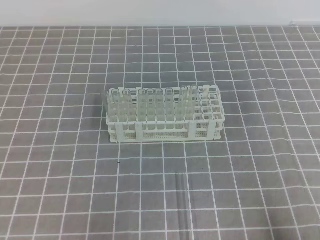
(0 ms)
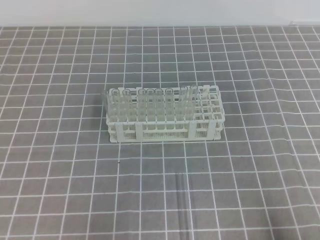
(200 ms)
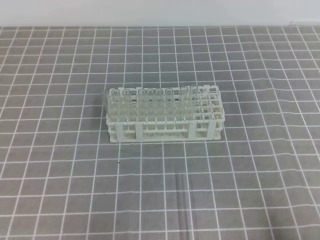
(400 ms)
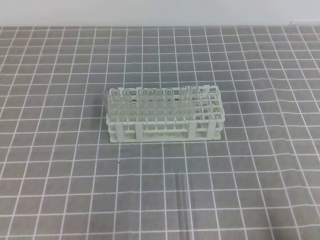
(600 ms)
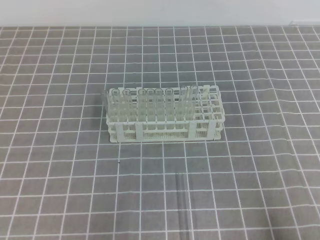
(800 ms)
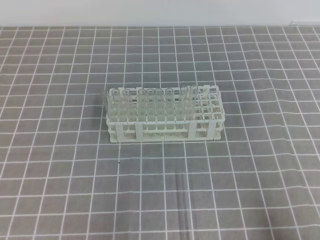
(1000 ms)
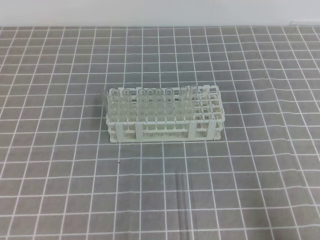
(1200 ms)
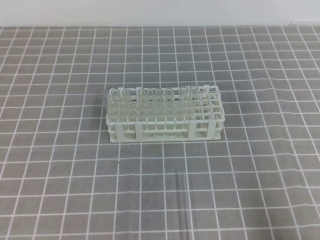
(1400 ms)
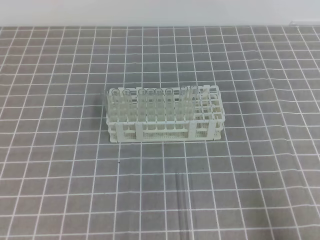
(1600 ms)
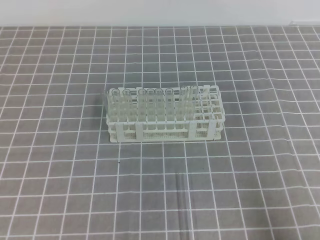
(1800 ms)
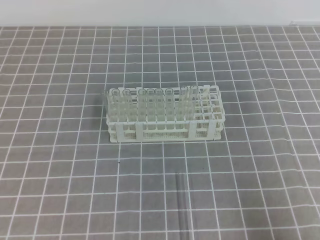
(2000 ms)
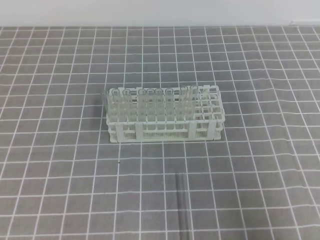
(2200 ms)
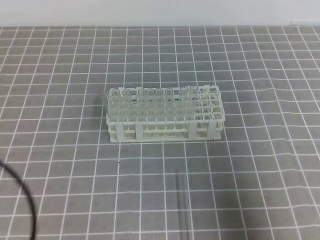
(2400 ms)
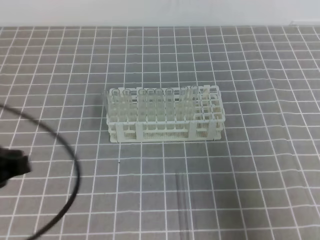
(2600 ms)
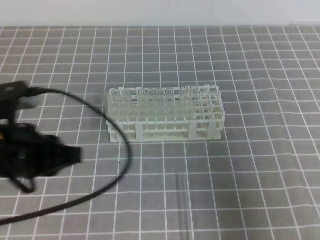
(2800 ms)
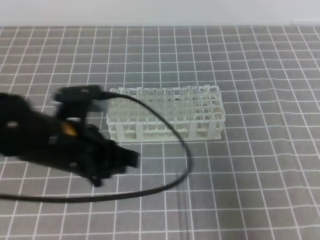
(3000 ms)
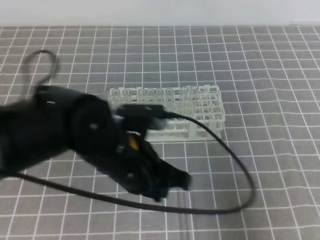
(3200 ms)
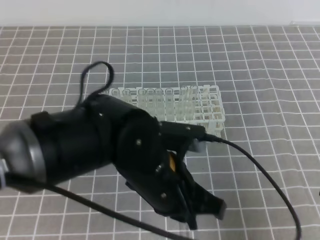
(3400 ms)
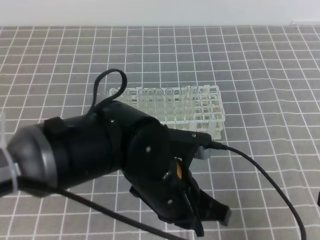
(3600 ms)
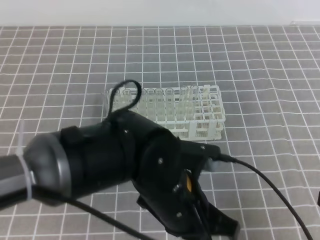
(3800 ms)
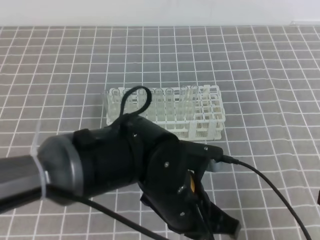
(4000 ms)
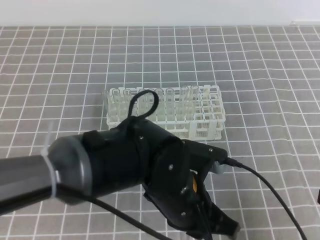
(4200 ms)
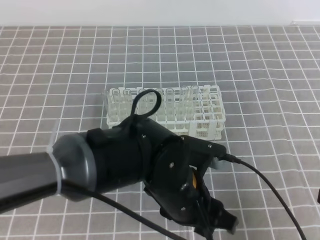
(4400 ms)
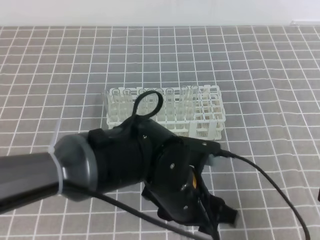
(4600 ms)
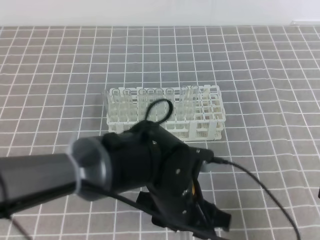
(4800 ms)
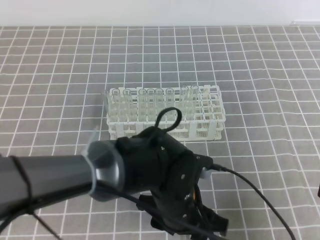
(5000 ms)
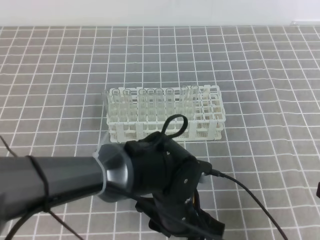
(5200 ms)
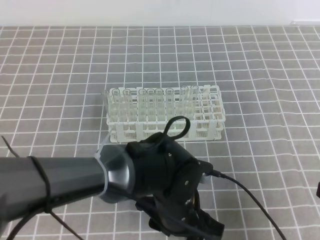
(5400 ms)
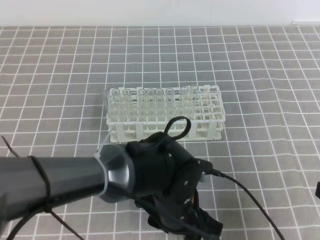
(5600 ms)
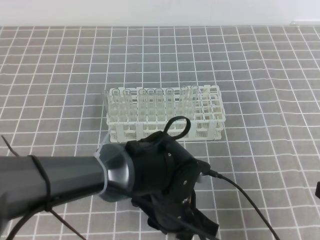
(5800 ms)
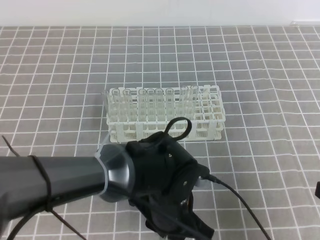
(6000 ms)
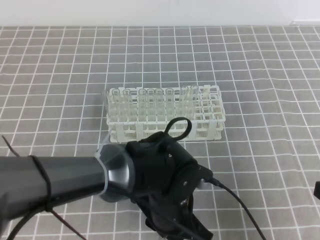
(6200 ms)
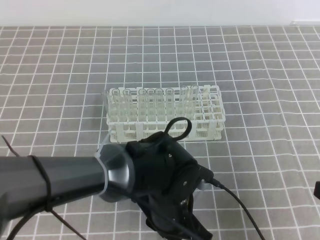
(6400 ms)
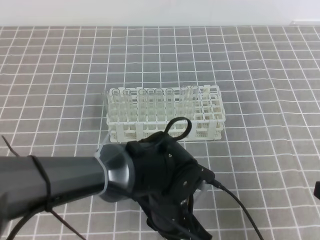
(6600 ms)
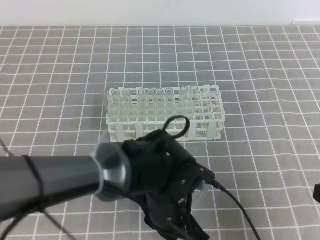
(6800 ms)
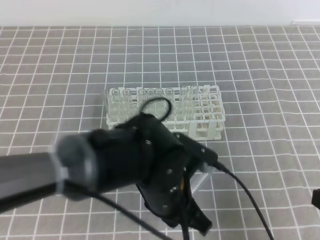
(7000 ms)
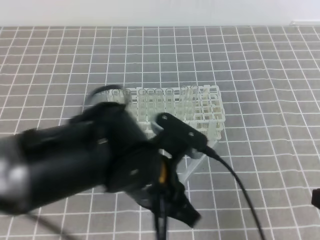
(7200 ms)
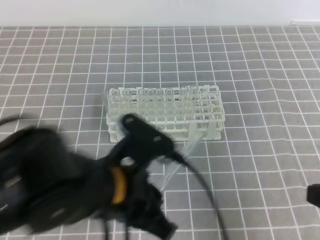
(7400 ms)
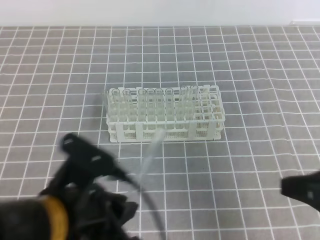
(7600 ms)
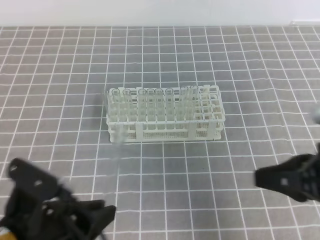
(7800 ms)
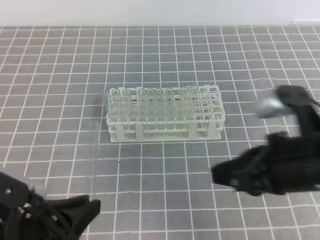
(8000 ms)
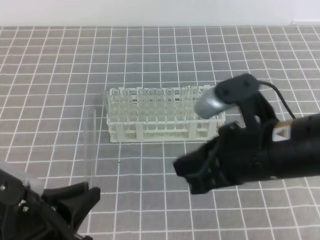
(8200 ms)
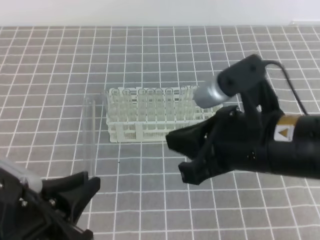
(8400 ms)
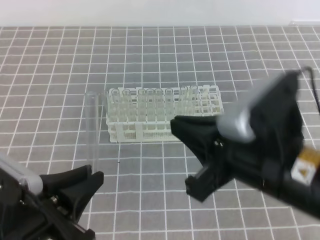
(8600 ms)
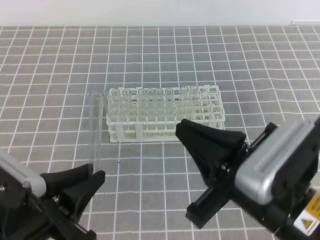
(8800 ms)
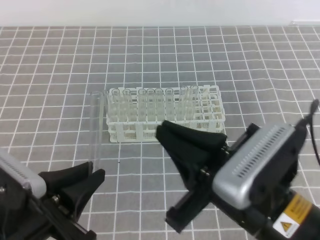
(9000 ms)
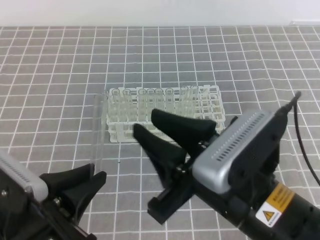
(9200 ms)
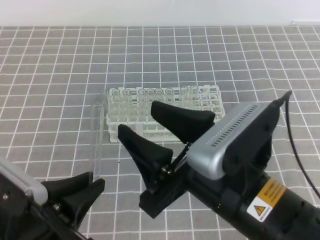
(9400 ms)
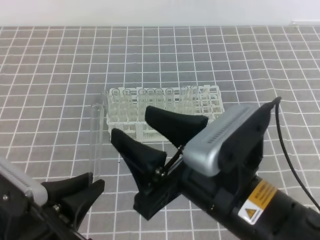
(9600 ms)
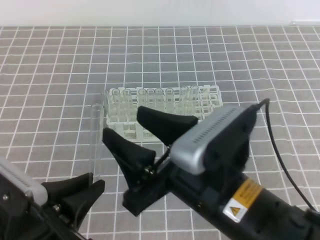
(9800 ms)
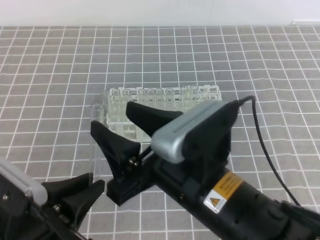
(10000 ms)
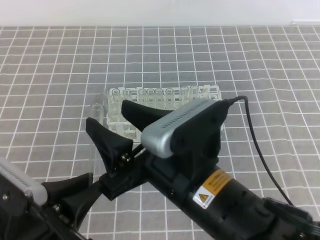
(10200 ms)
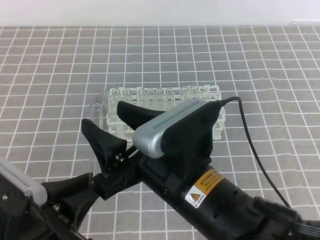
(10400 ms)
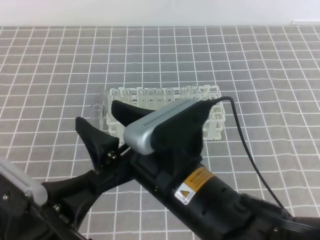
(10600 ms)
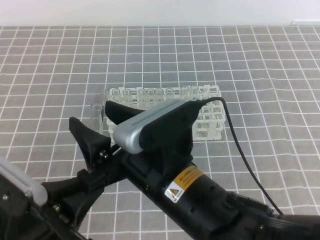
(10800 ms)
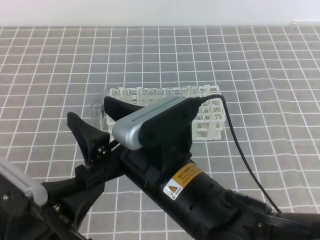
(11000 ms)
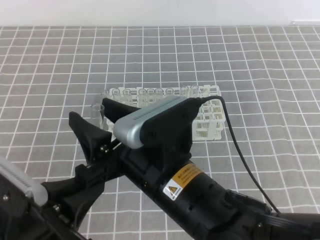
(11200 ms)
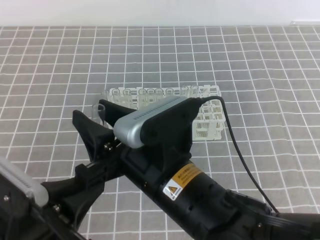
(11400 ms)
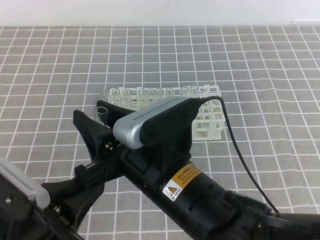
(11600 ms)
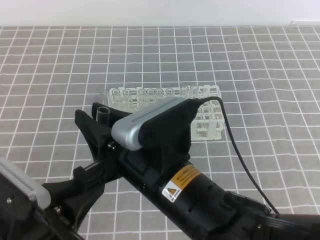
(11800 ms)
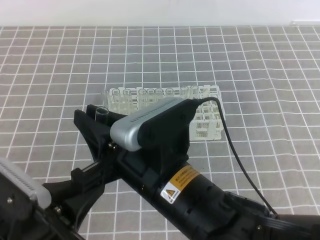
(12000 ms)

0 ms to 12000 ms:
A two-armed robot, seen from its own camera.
1600 ms to 3000 ms: The left gripper goes roughly 20 cm forward, to the right and upward. Meanwhile the right gripper moves forward and upward, some 10 cm.
3000 ms to 4400 ms: The left gripper moves to the right, roughly 15 cm, and opens its fingers.
4400 ms to 6000 ms: The left gripper is displaced downward by some 5 cm.
6000 ms to 7600 ms: The left gripper heads to the left, upward and backward, covering roughly 15 cm, and closes.
7600 ms to 9000 ms: The left gripper is displaced to the left by some 5 cm. The right gripper is displaced to the left by approximately 15 cm.
9000 ms to 10400 ms: The right gripper shifts approximately 5 cm to the left, and opens.
10400 ms to 12000 ms: The right gripper closes up.

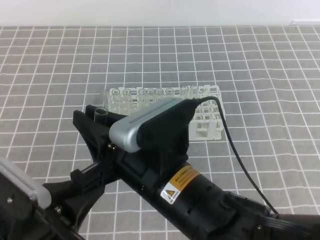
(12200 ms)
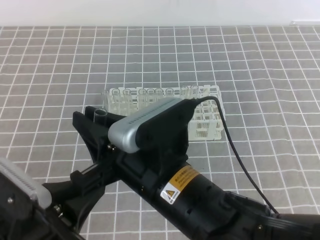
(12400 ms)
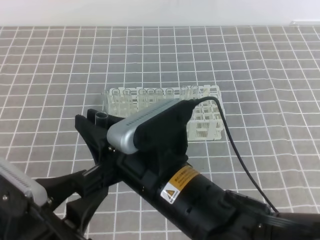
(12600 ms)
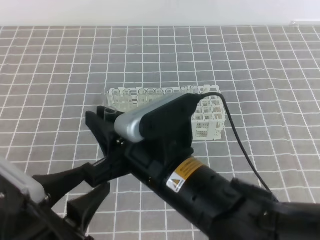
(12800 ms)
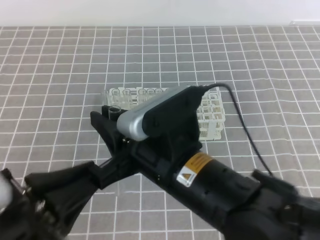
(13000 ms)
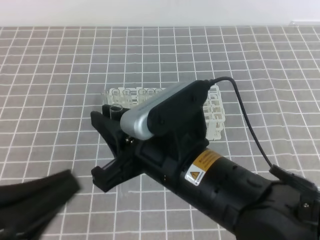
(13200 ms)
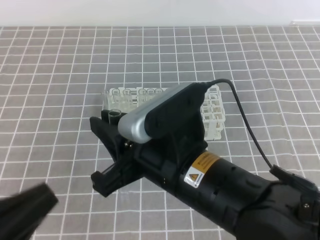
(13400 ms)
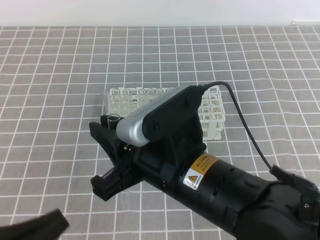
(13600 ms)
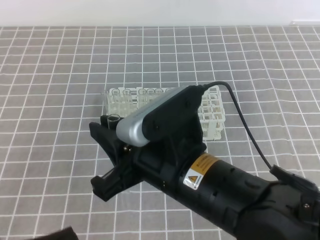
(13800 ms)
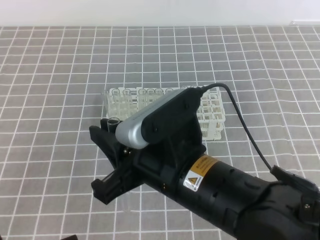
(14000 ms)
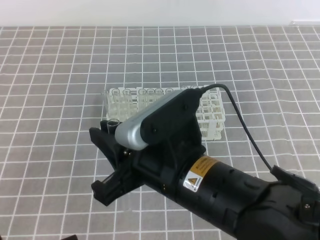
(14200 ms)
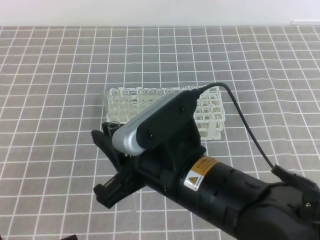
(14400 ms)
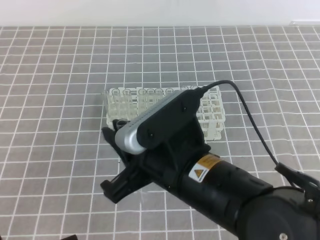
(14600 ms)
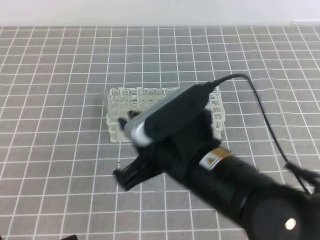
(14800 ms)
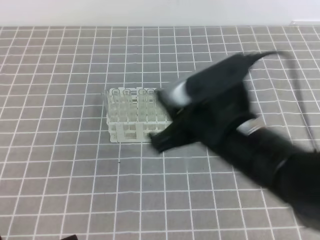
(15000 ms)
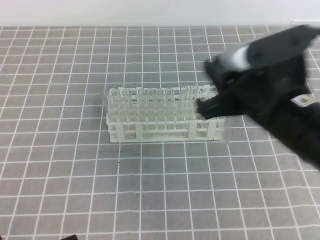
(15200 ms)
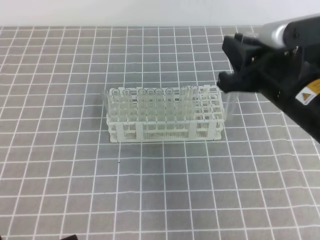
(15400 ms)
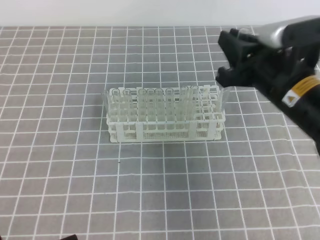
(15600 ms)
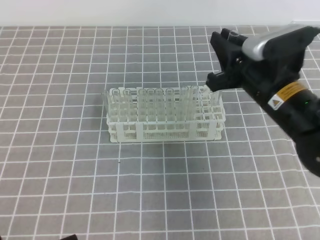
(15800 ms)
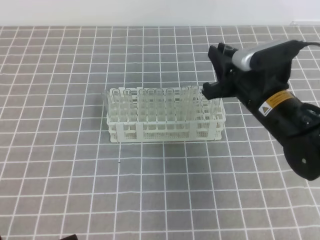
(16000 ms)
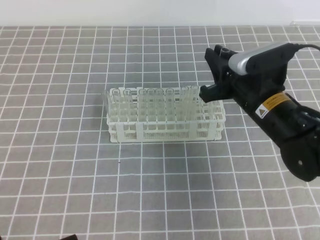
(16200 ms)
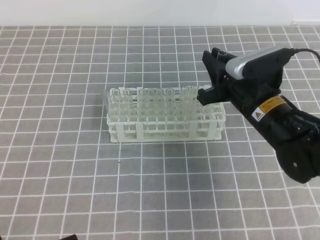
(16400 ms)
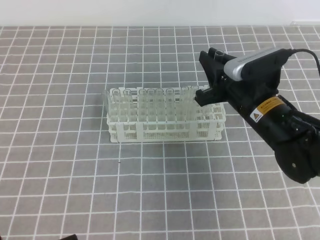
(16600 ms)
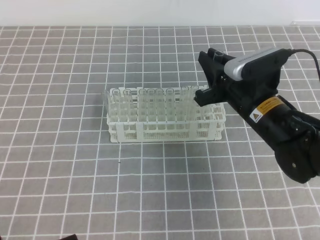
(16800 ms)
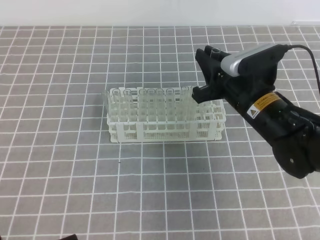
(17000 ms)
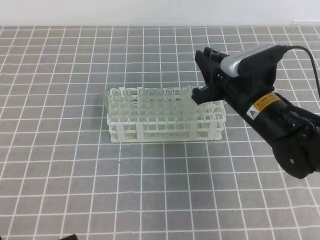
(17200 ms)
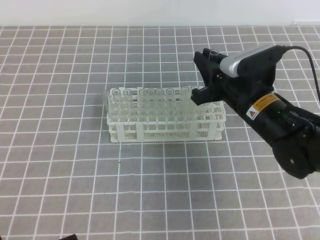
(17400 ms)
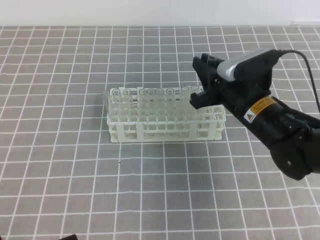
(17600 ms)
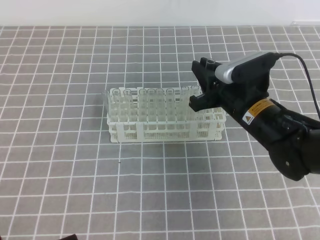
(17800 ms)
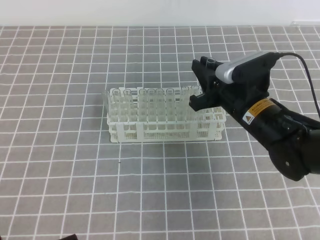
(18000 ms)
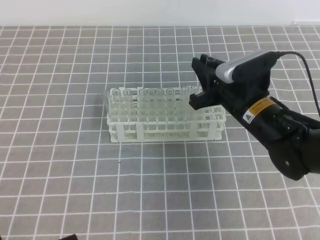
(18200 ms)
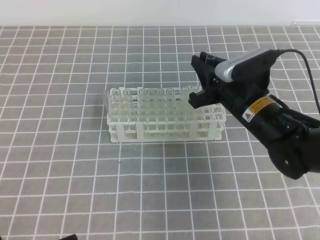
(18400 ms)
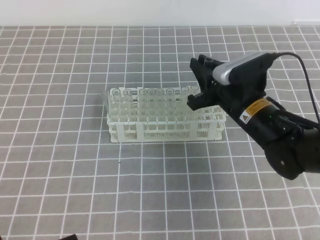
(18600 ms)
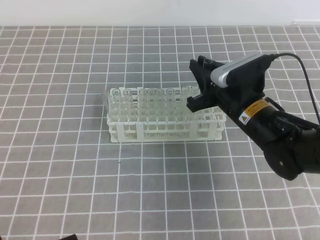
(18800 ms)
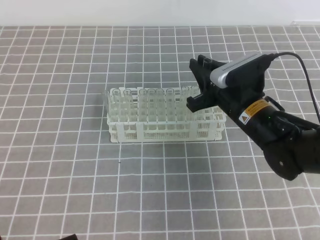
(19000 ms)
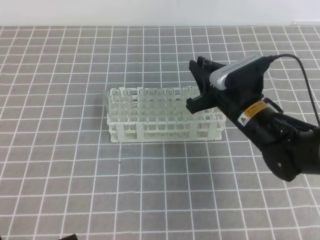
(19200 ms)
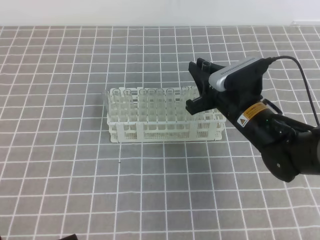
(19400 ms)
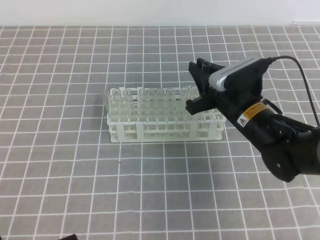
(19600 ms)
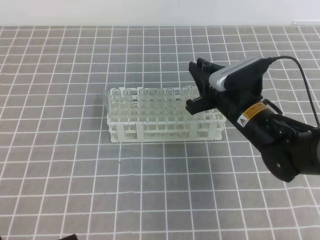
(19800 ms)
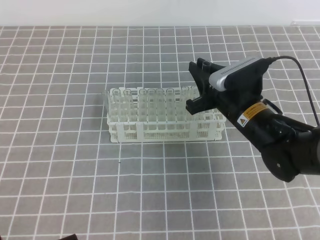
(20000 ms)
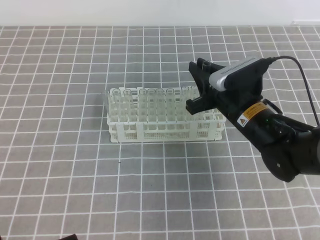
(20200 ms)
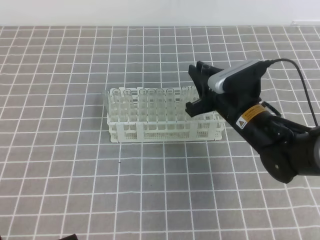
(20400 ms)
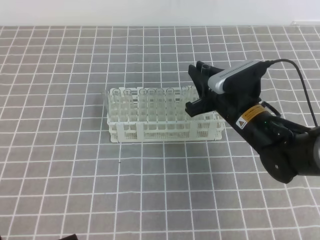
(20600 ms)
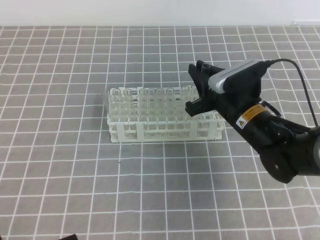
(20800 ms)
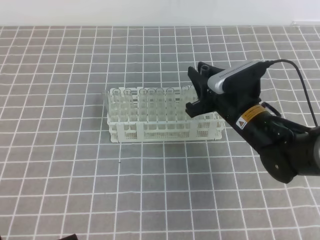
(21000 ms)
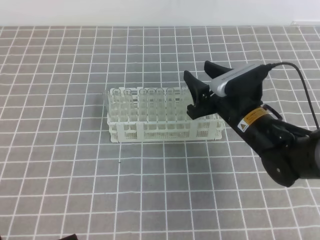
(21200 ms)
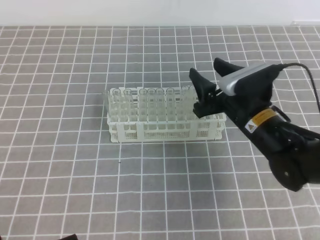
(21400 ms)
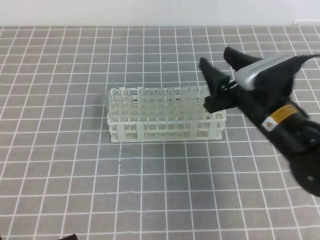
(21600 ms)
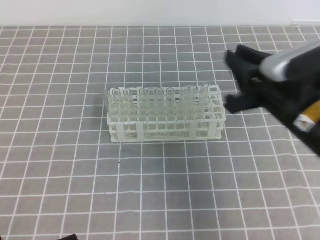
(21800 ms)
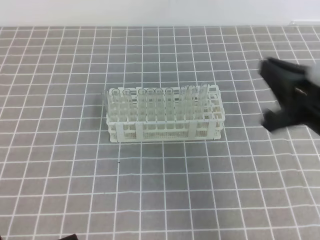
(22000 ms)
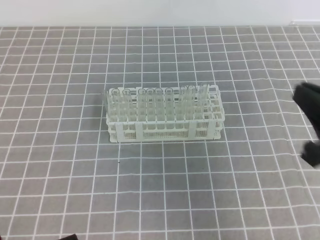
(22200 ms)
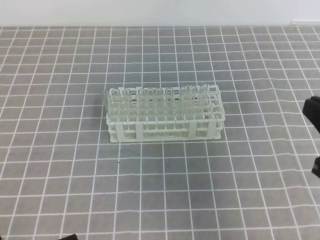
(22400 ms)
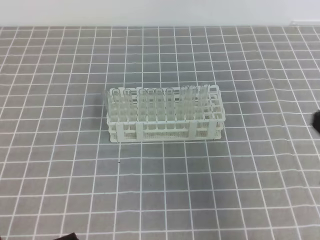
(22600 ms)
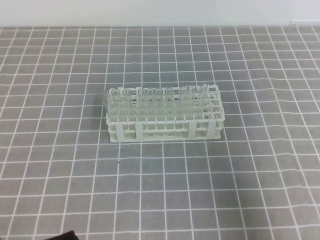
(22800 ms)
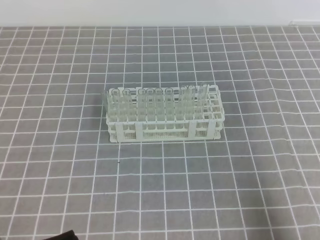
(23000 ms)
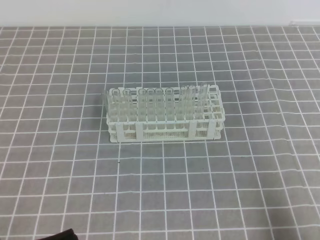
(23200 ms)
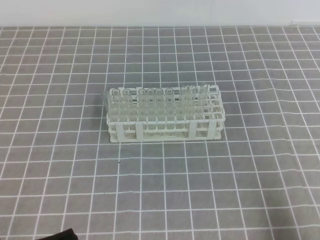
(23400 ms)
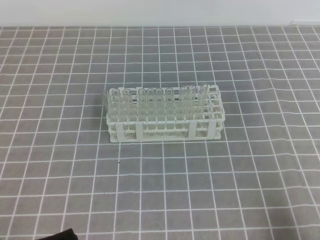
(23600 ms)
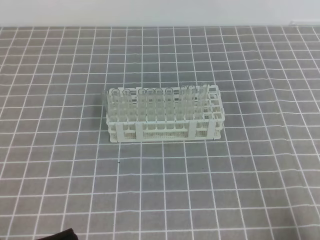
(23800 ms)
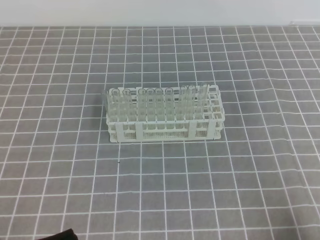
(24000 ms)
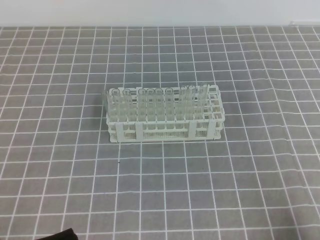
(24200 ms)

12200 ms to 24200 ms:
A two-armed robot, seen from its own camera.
12200 ms to 13800 ms: The left gripper goes some 5 cm backward, and opens and closes again.
13800 ms to 15200 ms: The right gripper shifts about 10 cm to the right and forward.
15200 ms to 16600 ms: The right gripper goes some 15 cm forward and downward.
16600 ms to 19800 ms: There are only small adjustments of the grippers.
19800 ms to 21200 ms: The right gripper opens.
21200 ms to 22600 ms: The right gripper travels backward, to the right and upward by some 25 cm, and closes its fingers.
22600 ms to 24200 ms: The right gripper moves downward and backward, roughly 15 cm.
